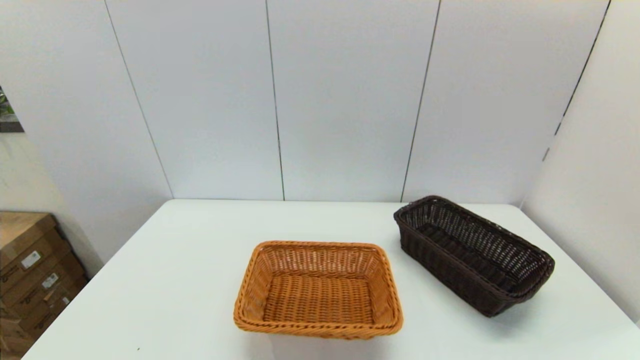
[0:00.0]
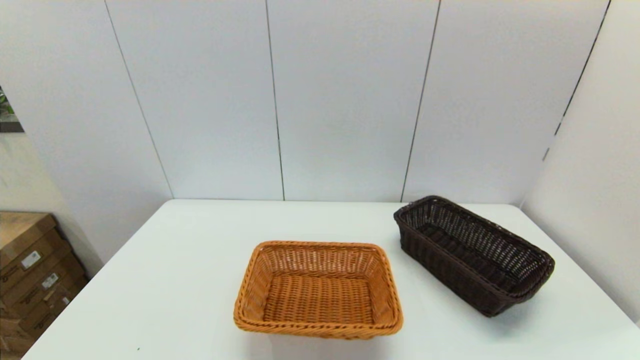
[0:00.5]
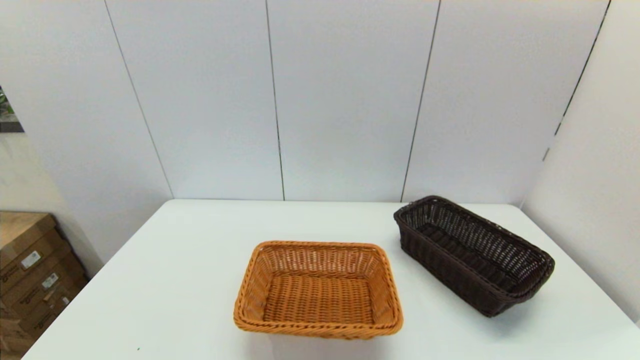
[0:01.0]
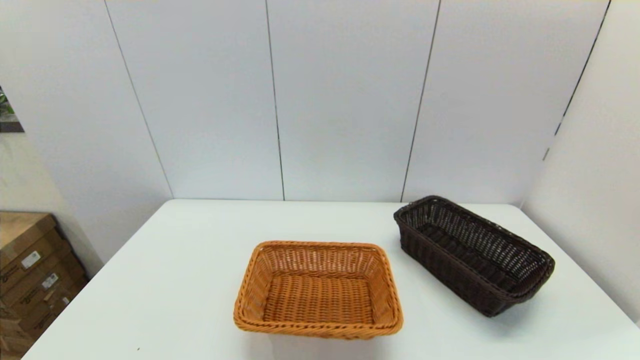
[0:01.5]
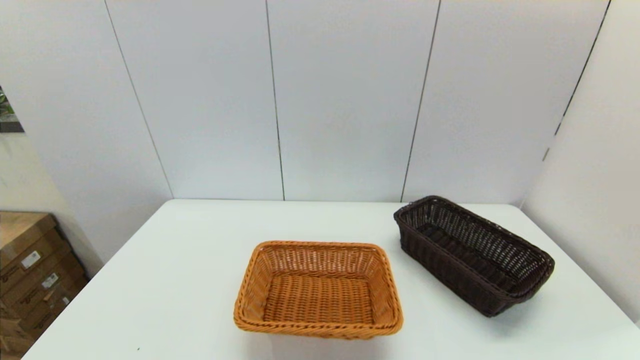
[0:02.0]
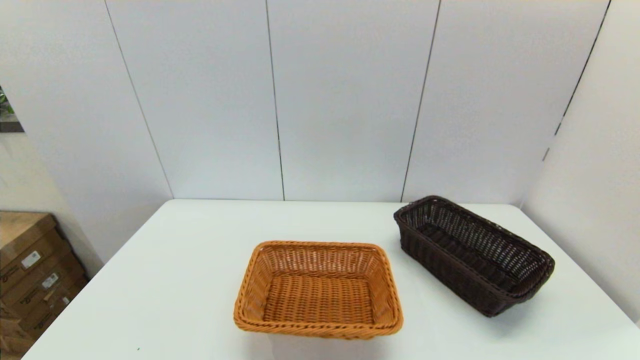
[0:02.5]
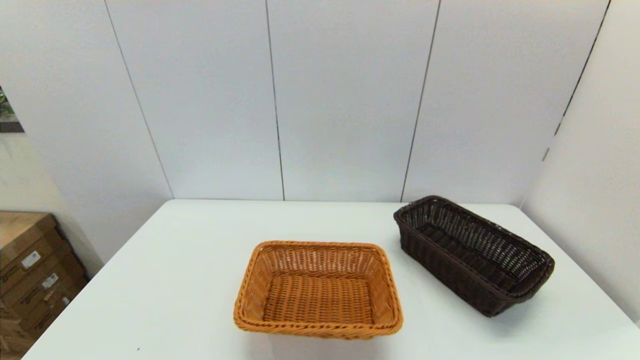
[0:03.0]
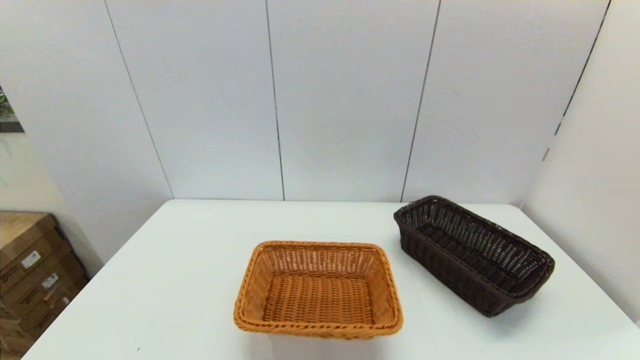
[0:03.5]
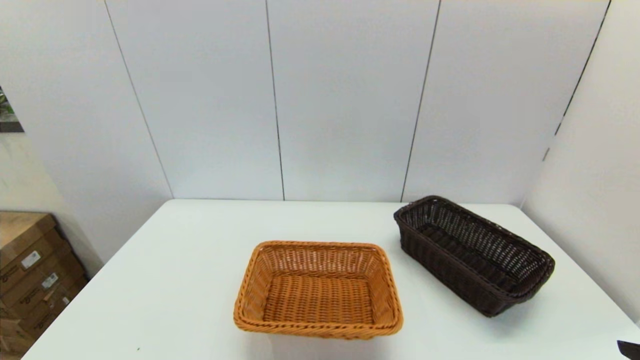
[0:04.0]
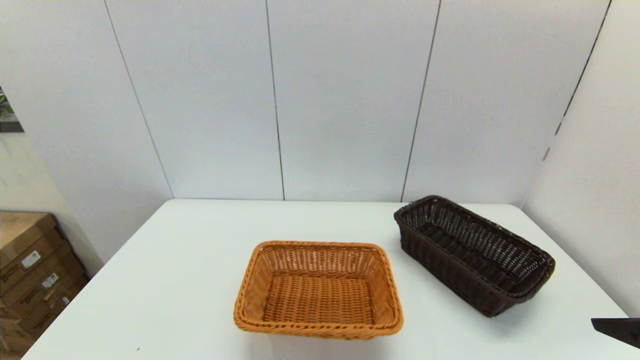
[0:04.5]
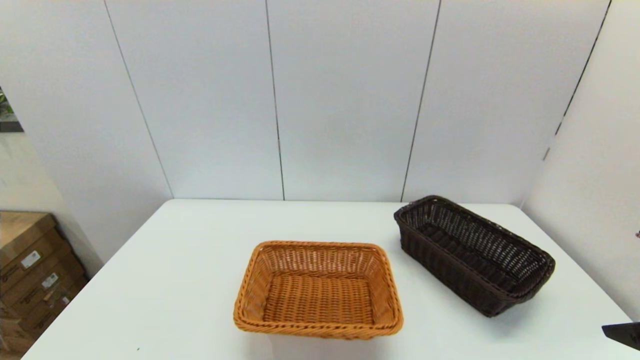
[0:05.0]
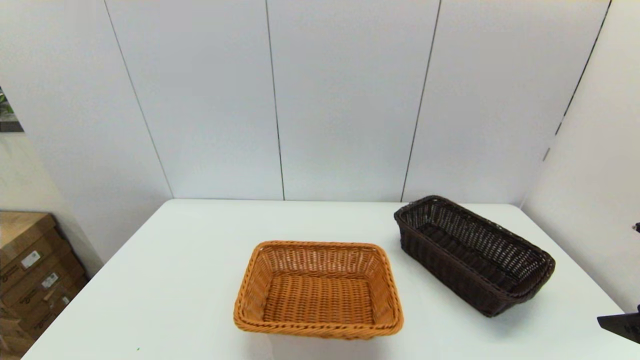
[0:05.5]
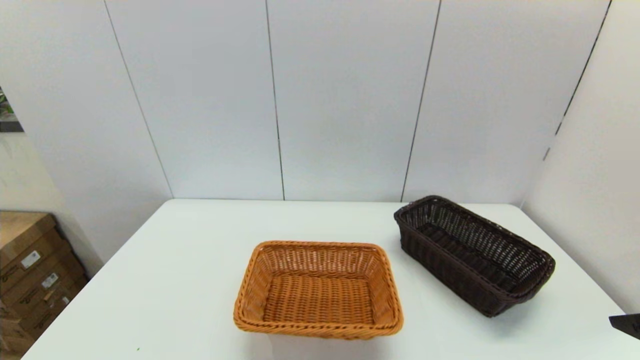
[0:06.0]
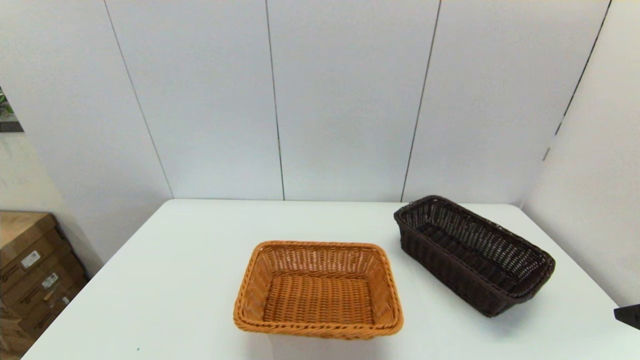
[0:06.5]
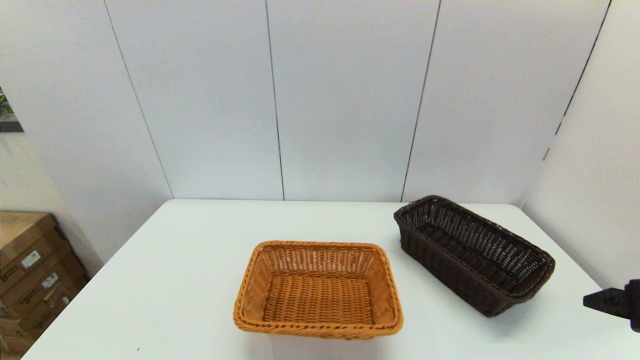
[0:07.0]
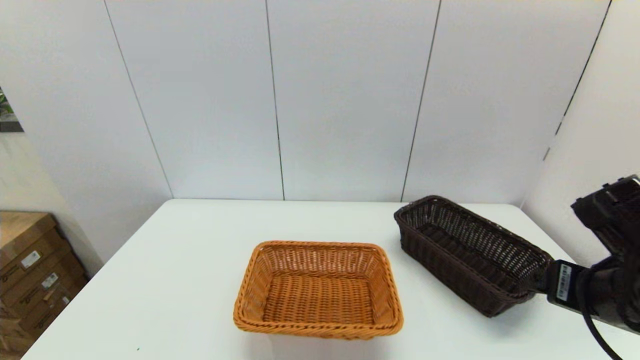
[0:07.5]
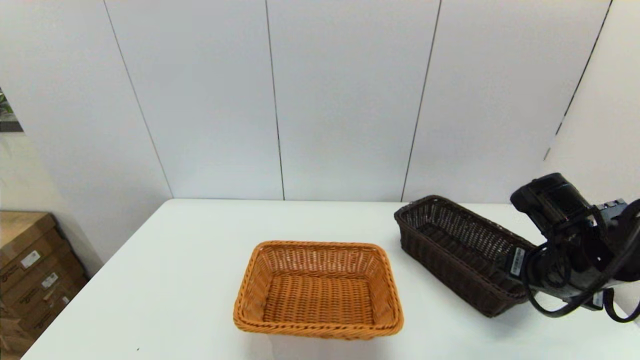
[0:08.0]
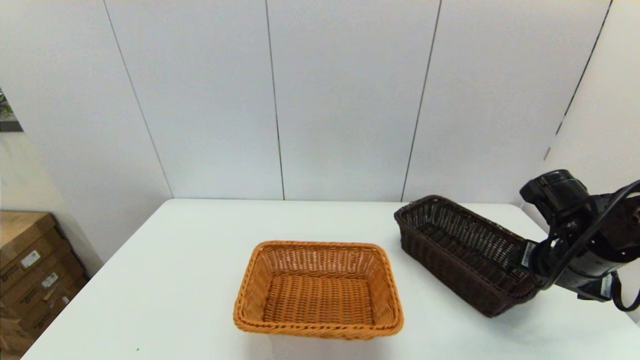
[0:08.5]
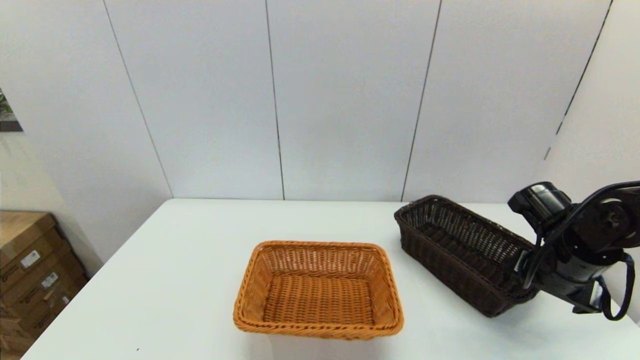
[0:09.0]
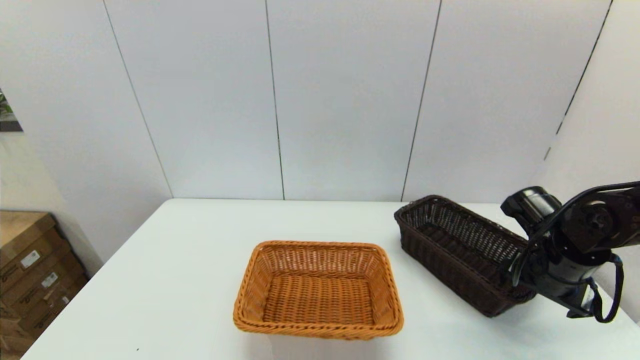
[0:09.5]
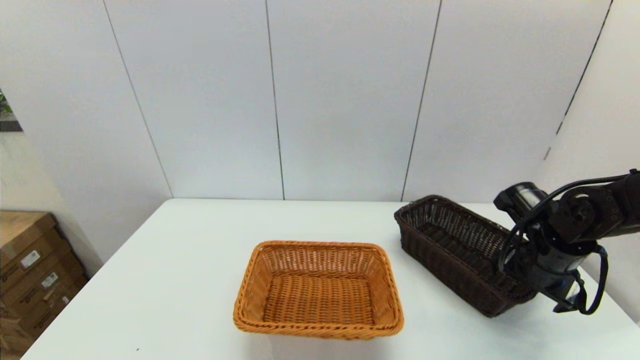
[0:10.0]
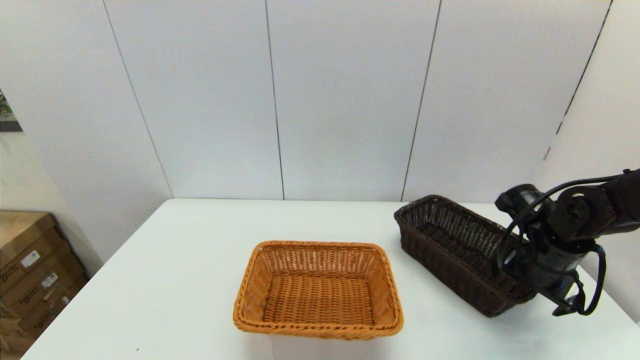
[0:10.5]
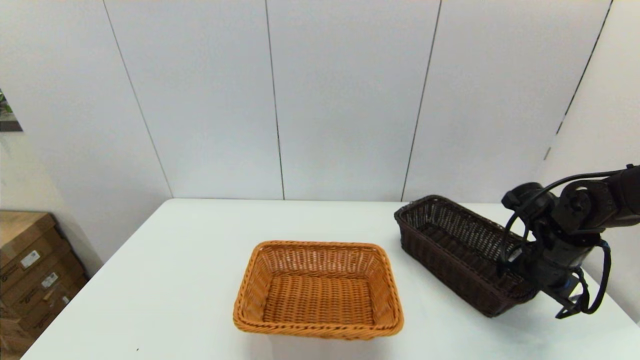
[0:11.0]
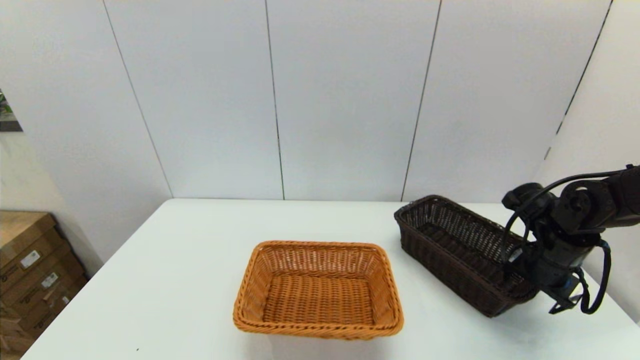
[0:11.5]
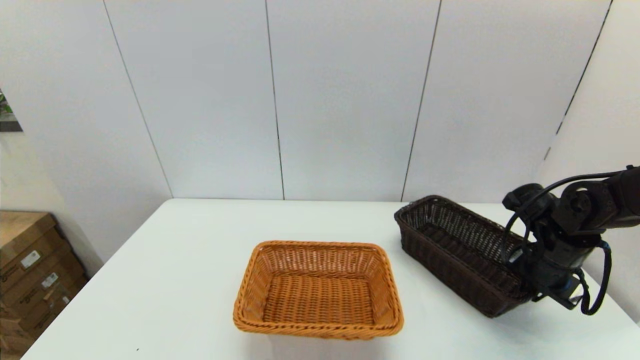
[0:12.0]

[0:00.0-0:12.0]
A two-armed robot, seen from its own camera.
Task of the whole recording: stack a basket on top of another basket.
0:06.0 to 0:08.0: The right gripper is displaced forward, downward and to the left by approximately 15 cm.
0:08.0 to 0:10.0: The right gripper shifts some 5 cm forward.
0:10.0 to 0:12.0: The right gripper closes up.

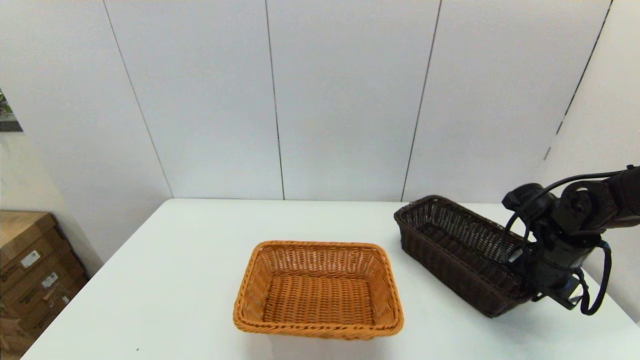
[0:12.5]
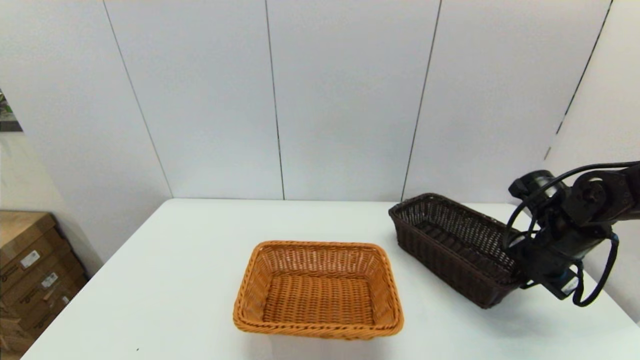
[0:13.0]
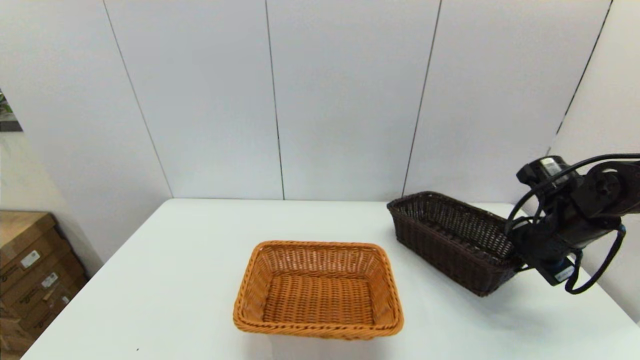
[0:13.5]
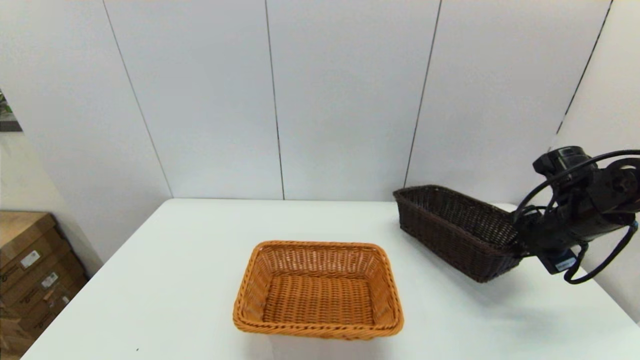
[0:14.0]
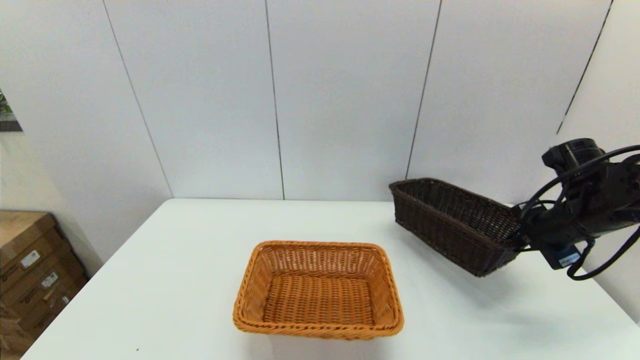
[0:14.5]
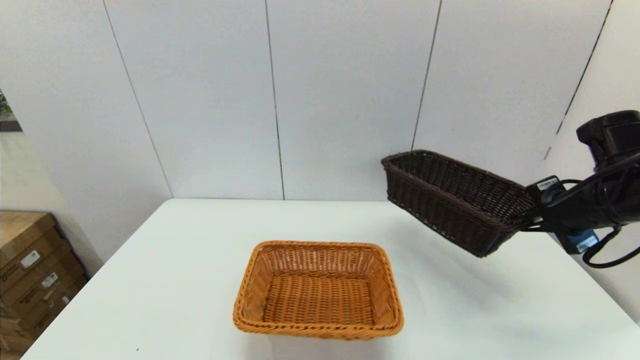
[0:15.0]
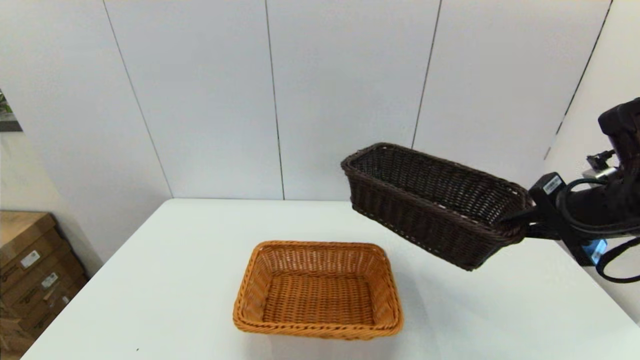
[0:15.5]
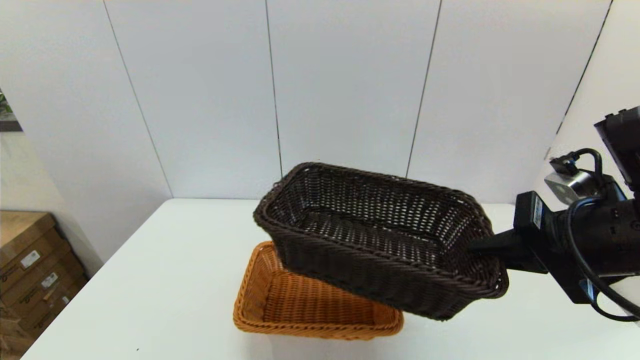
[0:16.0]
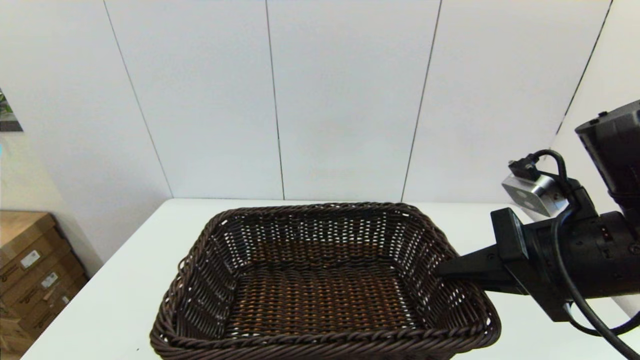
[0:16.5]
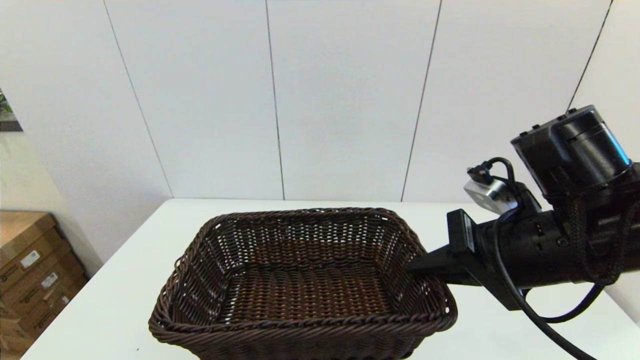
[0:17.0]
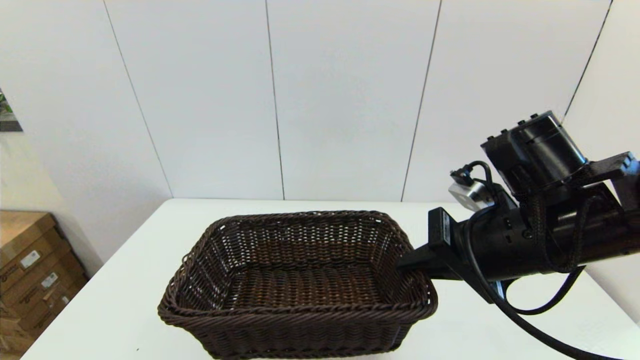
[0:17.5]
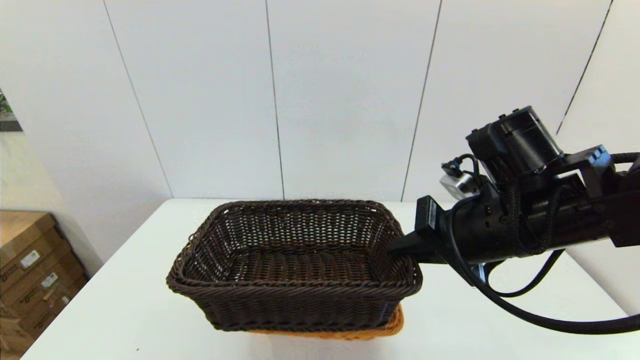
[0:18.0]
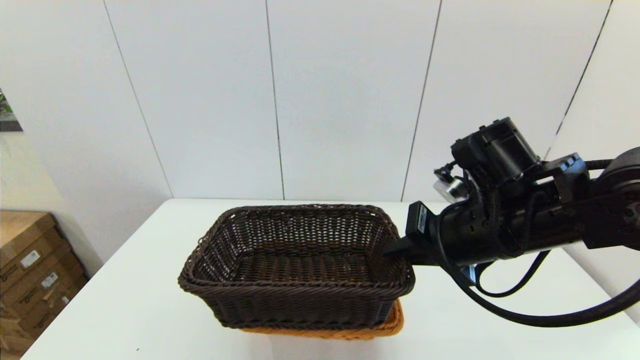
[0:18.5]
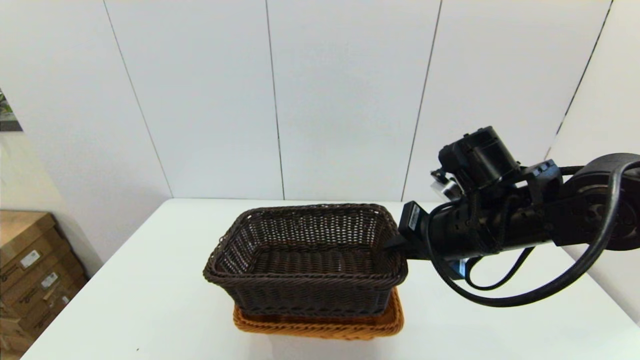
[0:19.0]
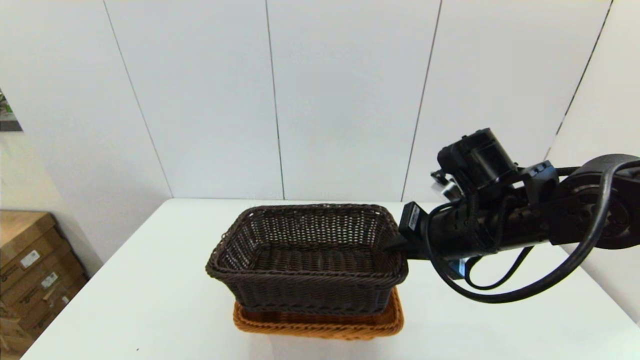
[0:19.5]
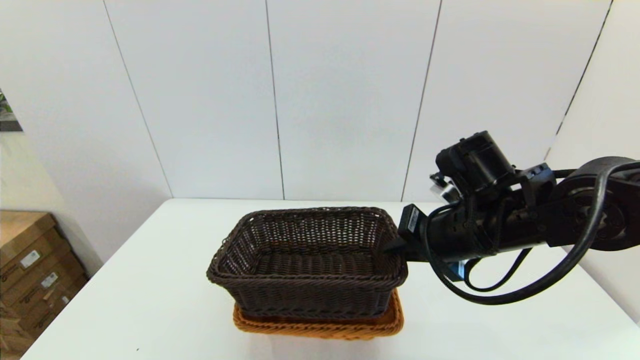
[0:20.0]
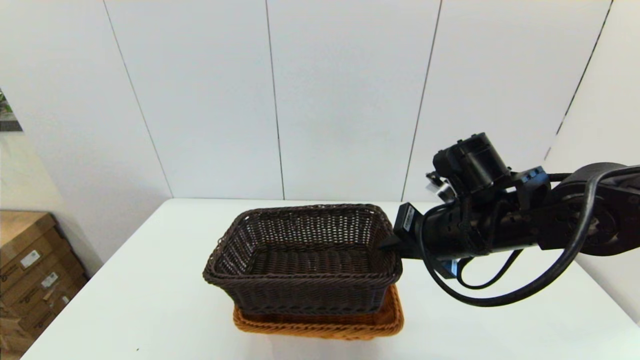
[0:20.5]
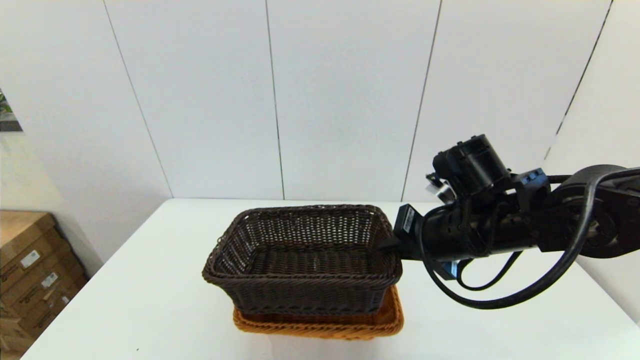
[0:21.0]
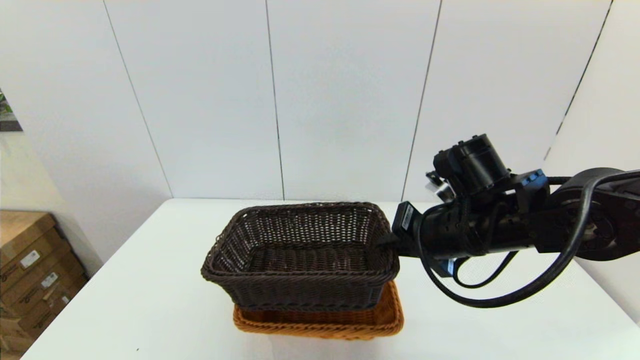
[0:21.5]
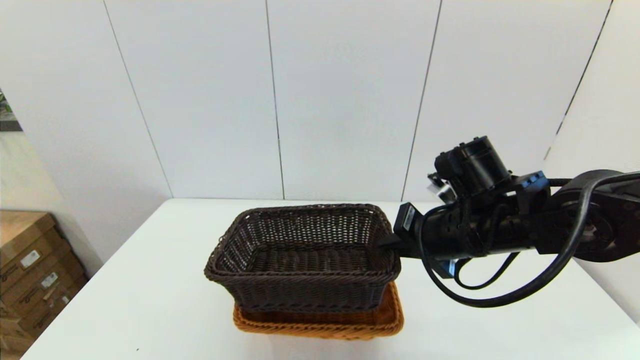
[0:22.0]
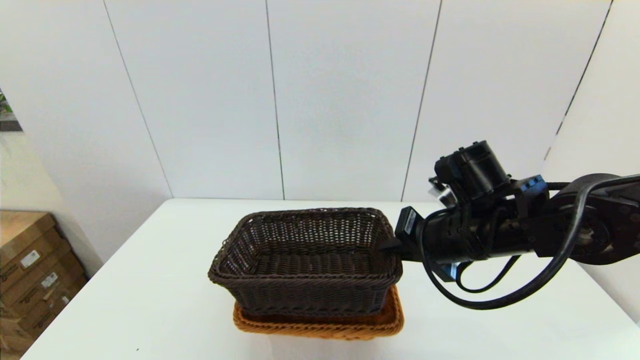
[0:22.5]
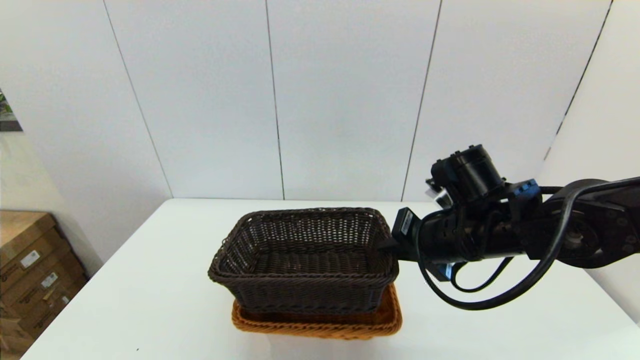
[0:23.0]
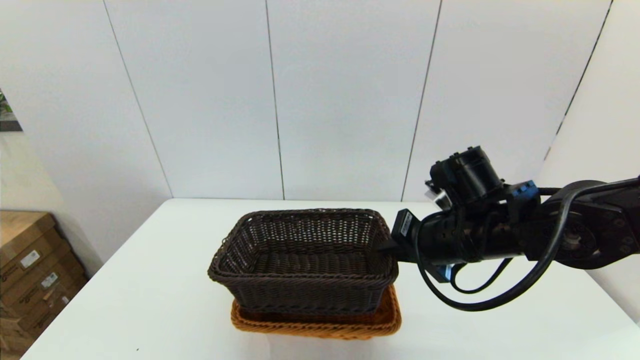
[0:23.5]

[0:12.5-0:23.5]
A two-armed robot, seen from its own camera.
Task of the whole recording: stack a basket on top of another basket.
0:12.5 to 0:14.5: The right gripper travels upward by approximately 5 cm.
0:14.5 to 0:16.0: The right gripper heads backward, to the left and upward, covering approximately 20 cm.
0:16.0 to 0:18.0: The right gripper is displaced to the left by approximately 5 cm.
0:18.0 to 0:20.0: The grippers stay close to where they were, moving slightly.
0:20.0 to 0:21.5: Neither gripper changes place.
0:21.5 to 0:23.5: The grippers move only a little.
